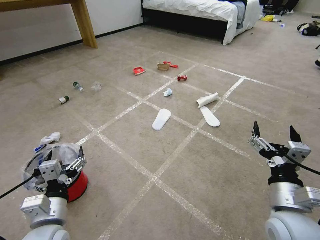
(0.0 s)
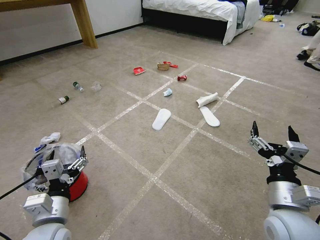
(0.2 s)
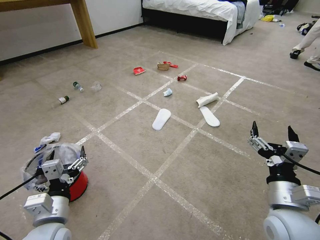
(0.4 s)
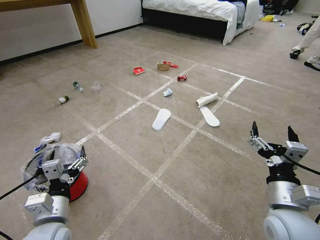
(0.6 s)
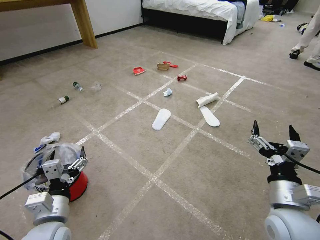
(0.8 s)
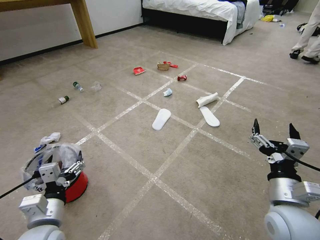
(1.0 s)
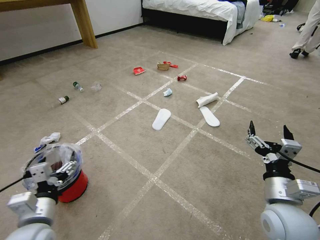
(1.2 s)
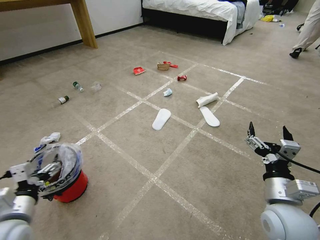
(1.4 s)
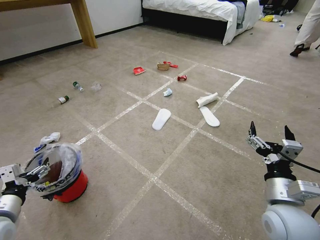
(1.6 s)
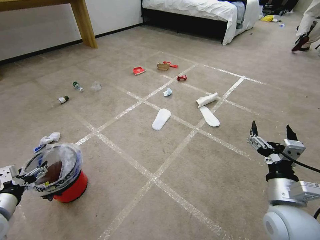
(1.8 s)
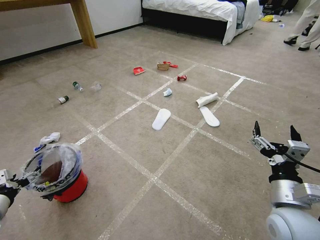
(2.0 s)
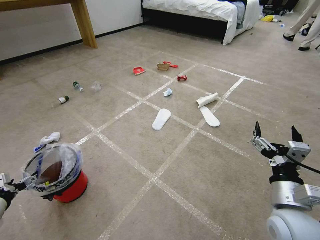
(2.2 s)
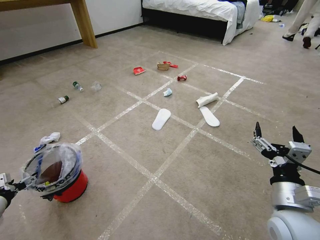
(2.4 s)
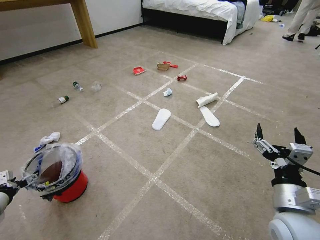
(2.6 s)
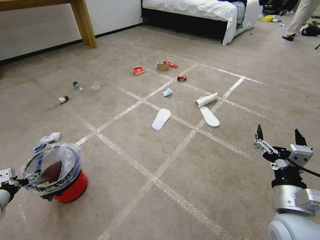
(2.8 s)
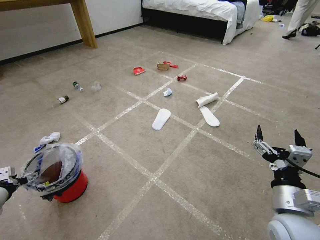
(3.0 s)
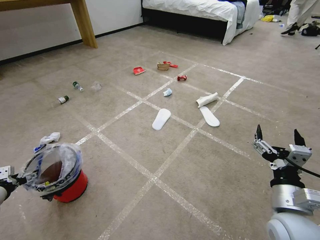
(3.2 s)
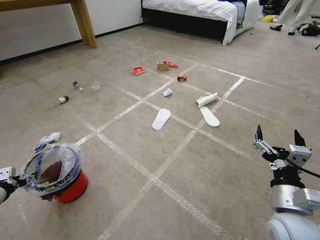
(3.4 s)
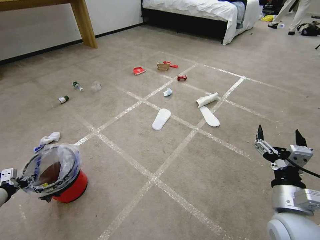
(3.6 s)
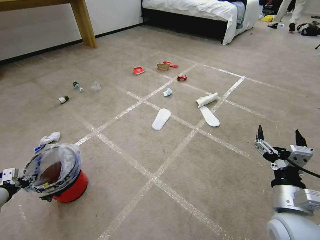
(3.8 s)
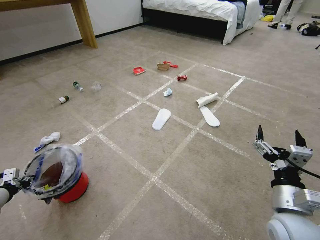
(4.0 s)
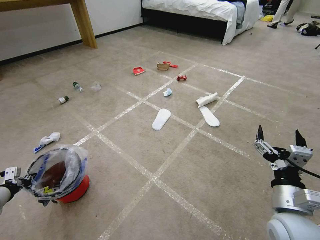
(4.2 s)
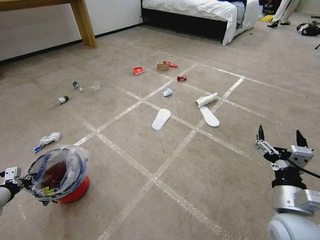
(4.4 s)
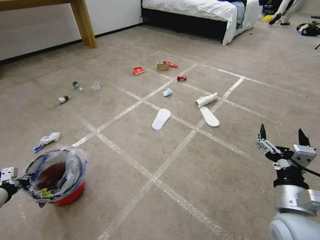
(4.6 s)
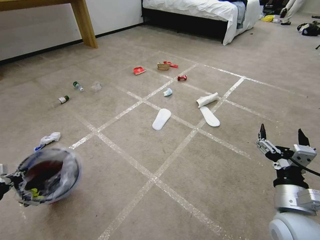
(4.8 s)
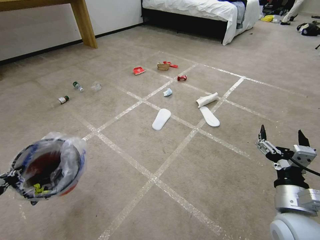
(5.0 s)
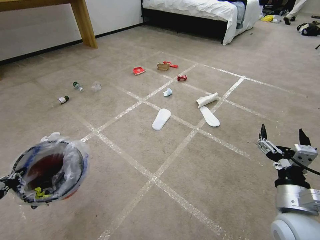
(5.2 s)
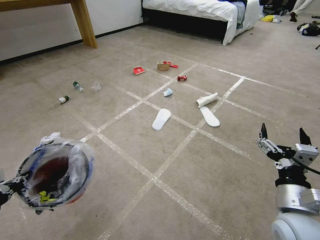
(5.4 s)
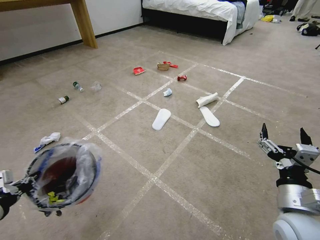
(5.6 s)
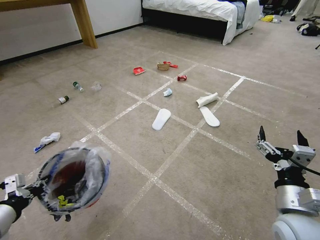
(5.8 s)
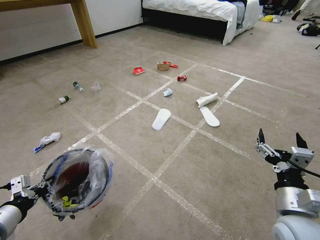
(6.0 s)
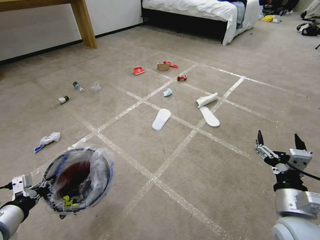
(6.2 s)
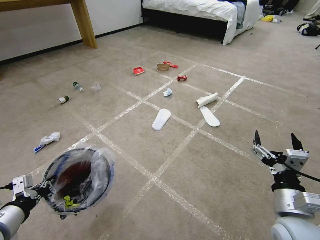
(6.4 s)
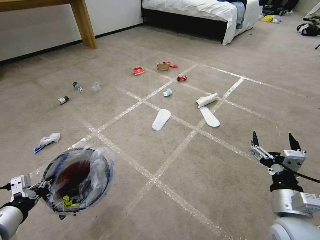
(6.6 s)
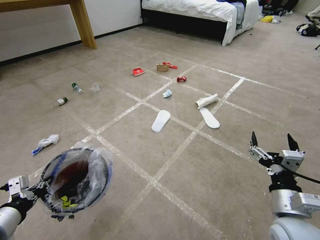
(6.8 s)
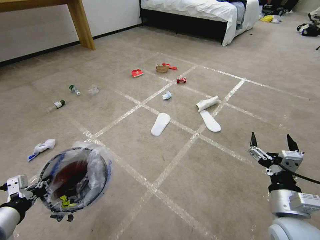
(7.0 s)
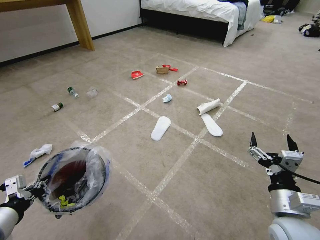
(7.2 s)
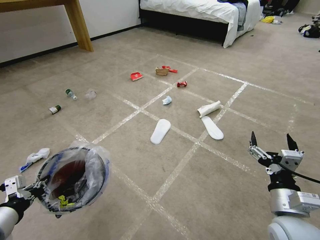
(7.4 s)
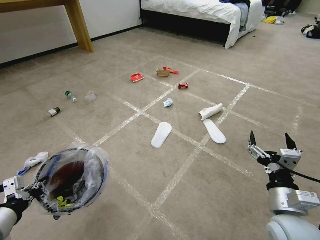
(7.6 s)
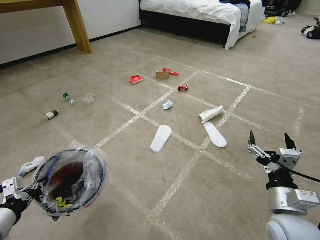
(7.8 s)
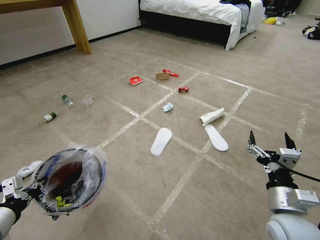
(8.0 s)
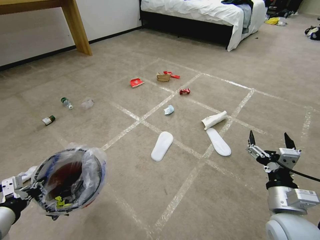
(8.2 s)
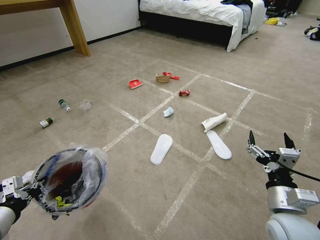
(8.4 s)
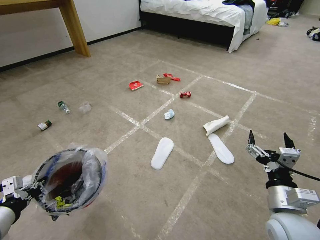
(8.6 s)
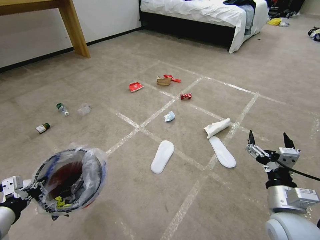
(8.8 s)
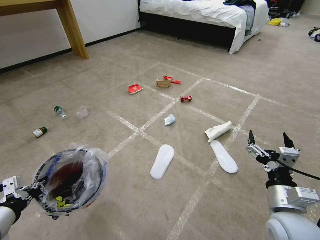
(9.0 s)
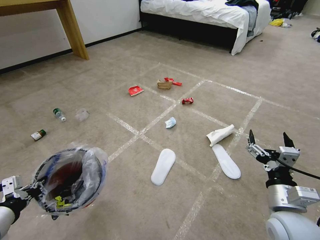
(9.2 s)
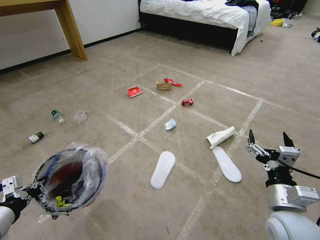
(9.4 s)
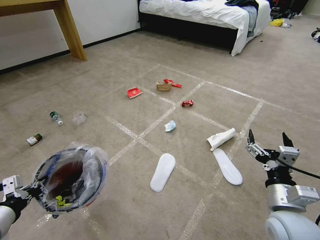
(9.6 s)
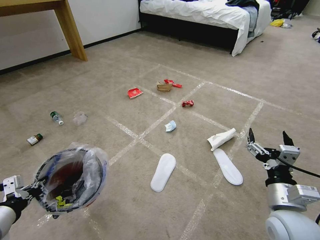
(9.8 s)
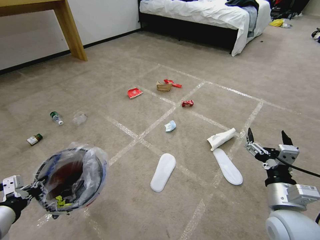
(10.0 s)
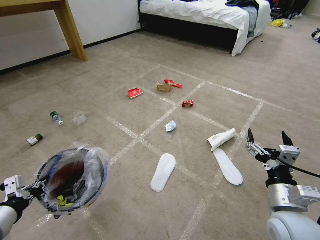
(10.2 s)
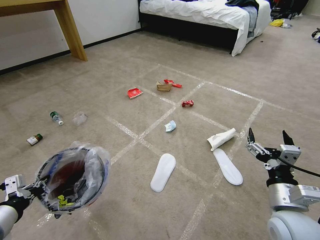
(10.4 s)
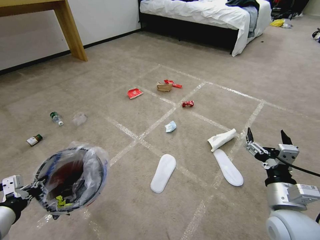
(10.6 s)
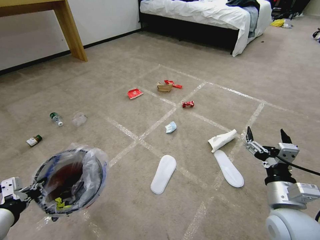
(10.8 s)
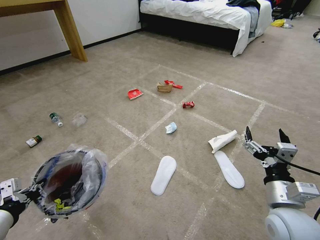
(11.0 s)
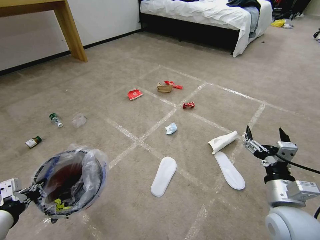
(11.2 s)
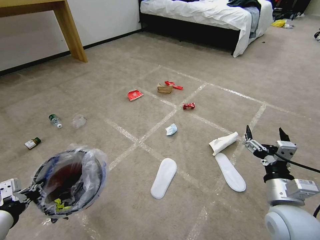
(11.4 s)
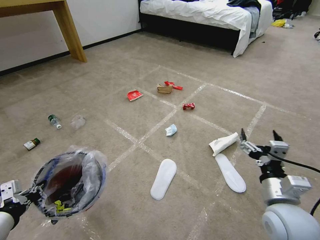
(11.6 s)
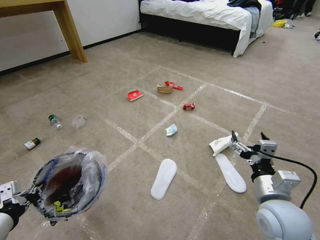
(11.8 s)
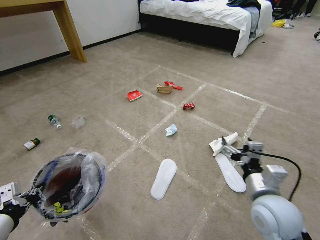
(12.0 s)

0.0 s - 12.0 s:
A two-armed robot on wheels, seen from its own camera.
Task of the whole recording: Pick up the trash bin and place the garbage on the floor into it.
1.6 s - 3.0 s: The left gripper shifts about 20 cm to the left, forward and downward.
3.0 s - 4.4 s: The left gripper closes up.
4.4 s - 6.0 s: The left gripper is displaced to the right, backward and upward by some 20 cm.
9.0 s - 10.4 s: The two grippers keep their place.

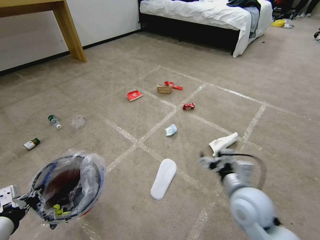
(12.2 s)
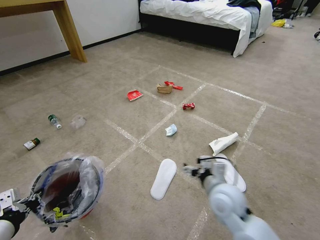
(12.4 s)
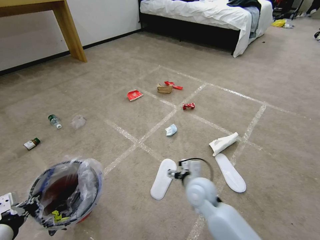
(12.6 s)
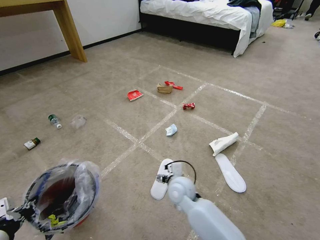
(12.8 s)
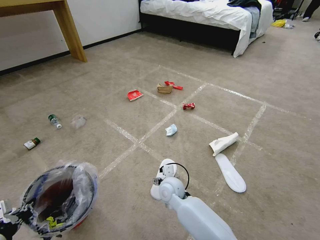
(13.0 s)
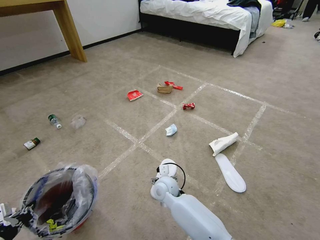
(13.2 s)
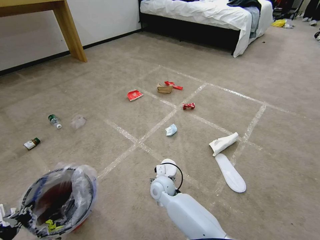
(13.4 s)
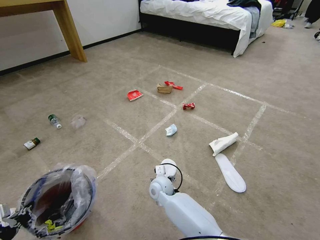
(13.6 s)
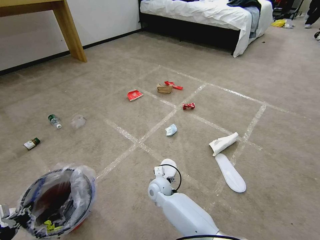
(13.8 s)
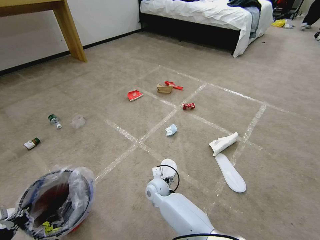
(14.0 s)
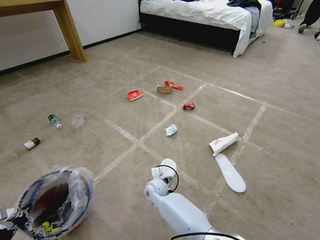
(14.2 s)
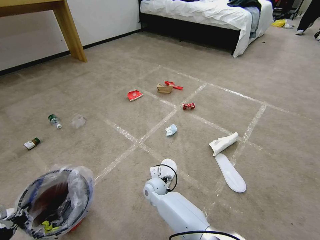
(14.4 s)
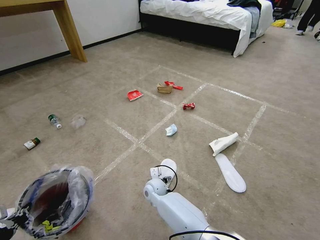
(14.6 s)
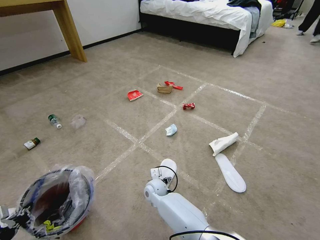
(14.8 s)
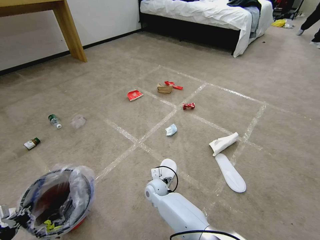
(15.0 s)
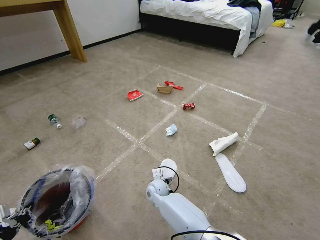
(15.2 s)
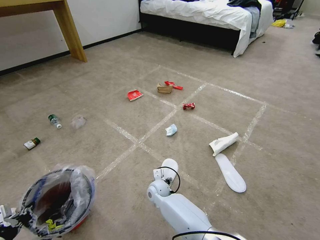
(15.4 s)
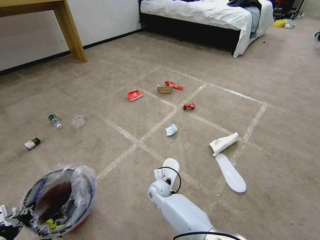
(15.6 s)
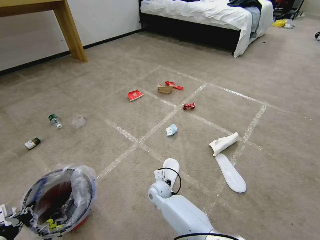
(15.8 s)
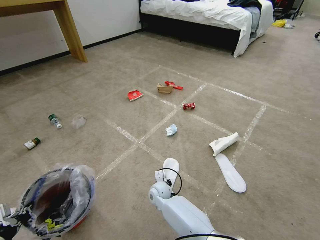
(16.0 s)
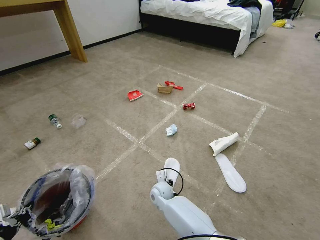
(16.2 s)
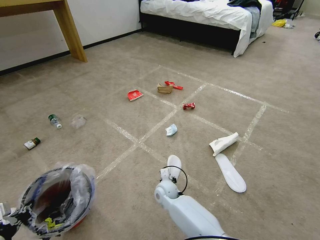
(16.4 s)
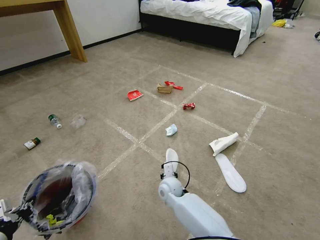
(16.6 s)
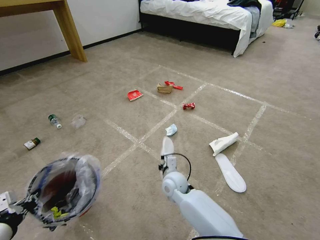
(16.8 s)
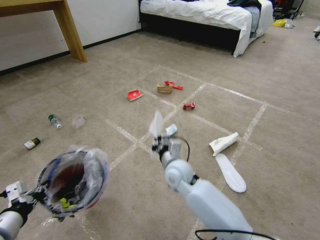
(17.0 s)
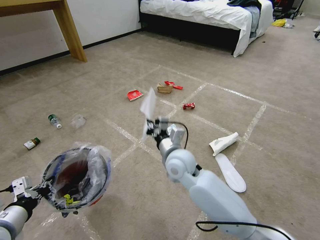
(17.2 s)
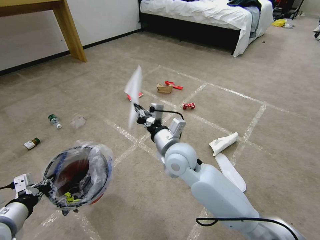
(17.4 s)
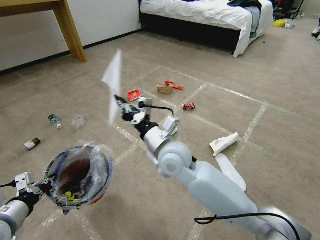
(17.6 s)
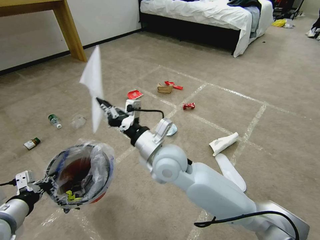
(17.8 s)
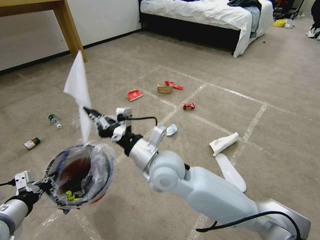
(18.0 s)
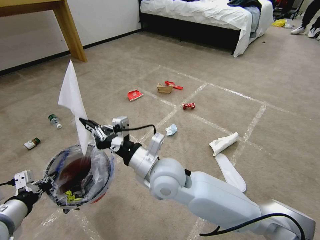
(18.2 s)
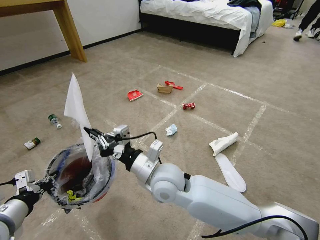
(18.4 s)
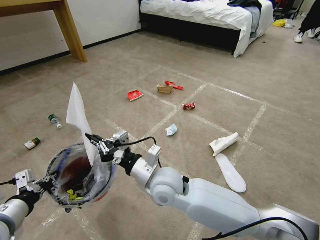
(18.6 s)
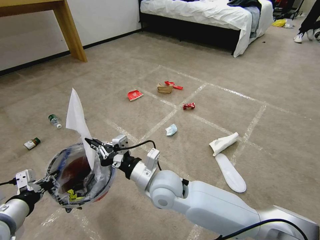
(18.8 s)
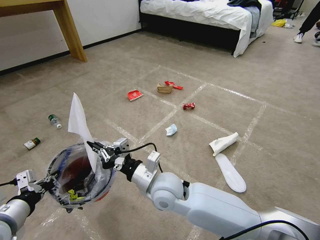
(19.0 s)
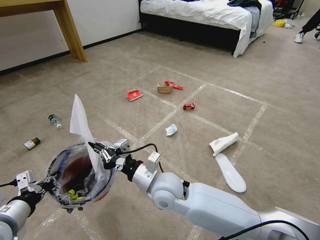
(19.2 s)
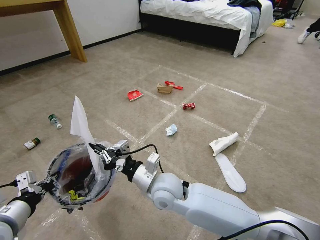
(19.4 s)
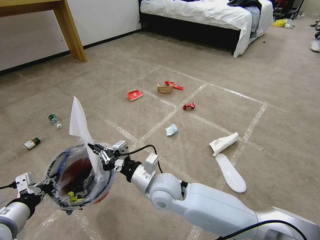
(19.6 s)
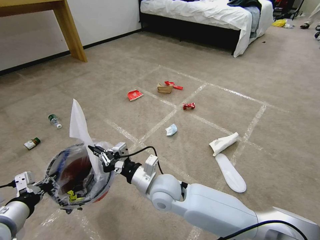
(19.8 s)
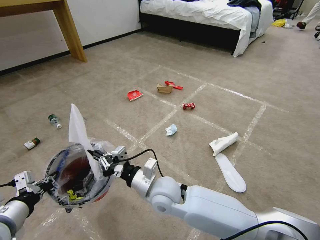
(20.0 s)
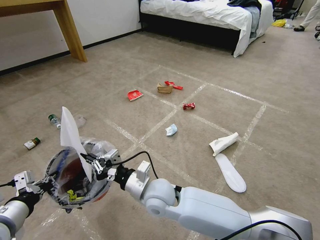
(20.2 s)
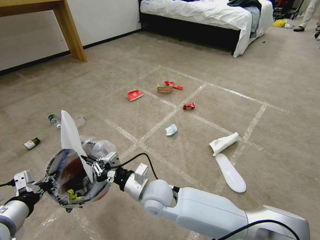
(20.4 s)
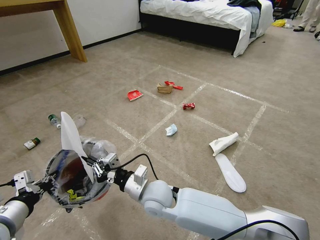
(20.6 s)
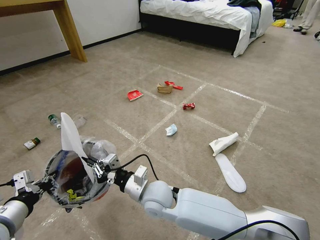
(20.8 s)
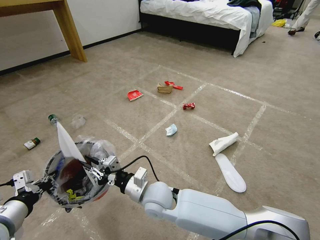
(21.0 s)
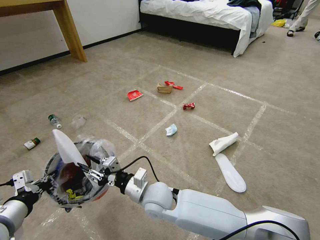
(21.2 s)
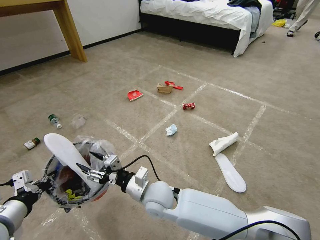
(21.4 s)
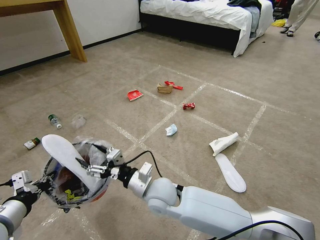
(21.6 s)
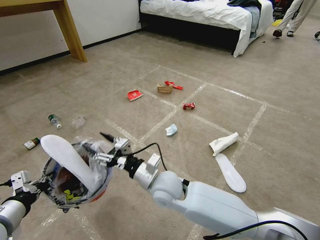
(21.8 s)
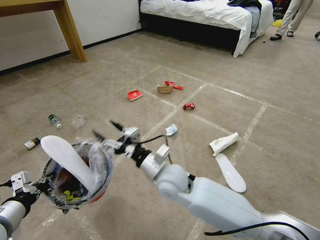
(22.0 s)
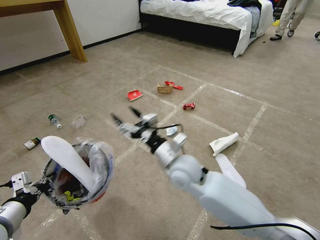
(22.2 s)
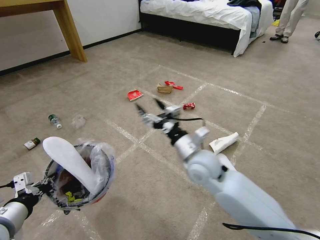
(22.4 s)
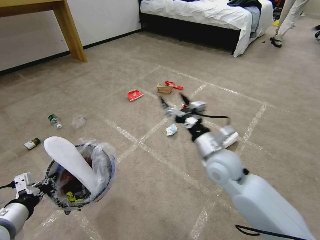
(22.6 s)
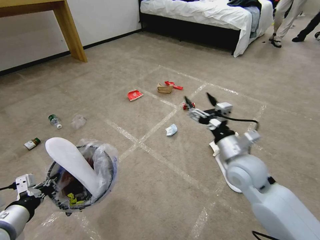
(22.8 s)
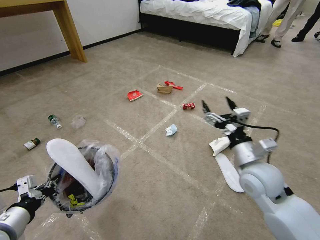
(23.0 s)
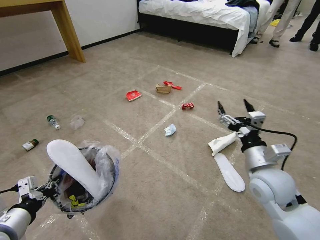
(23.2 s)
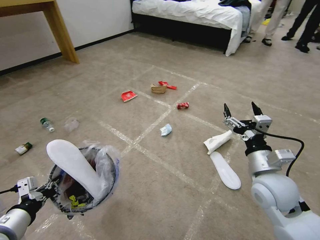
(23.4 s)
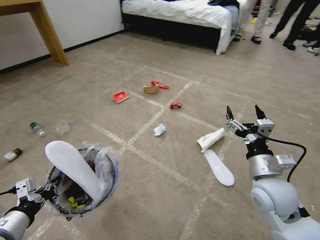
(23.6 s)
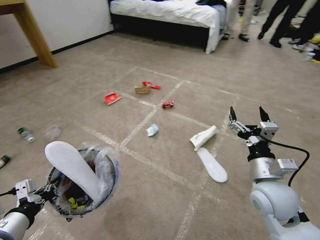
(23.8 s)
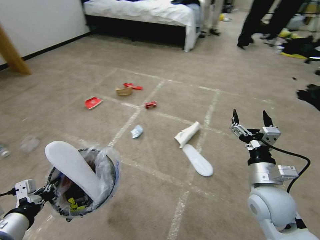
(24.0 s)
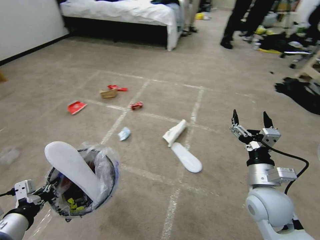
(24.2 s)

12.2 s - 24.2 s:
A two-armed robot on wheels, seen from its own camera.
Task of the whole recording: Pick up the trash bin and place the garbage on the floor into it.
12.2 s - 13.8 s: The right gripper shifts approximately 35 cm to the left, downward and forward, while the left gripper changes place by roughly 5 cm.
13.8 s - 15.2 s: There are only small adjustments of the grippers.
15.2 s - 16.6 s: The right gripper moves upward and to the right, some 5 cm, and closes up.
16.6 s - 18.2 s: The right gripper shifts about 25 cm upward; the left gripper heads forward, covering approximately 5 cm.
18.2 s - 19.8 s: The right gripper goes some 10 cm downward.
19.8 s - 21.2 s: The right gripper opens up.
21.2 s - 22.6 s: The right gripper heads to the right and upward, covering some 25 cm, and opens.
22.6 s - 24.2 s: The right gripper heads to the right and backward, covering roughly 15 cm.
